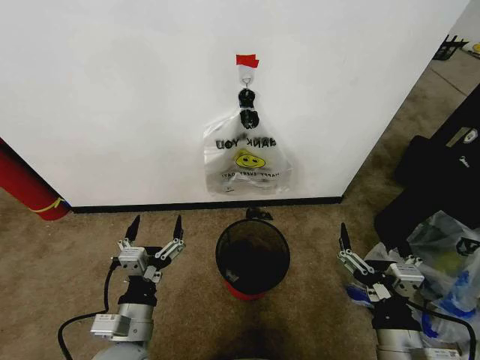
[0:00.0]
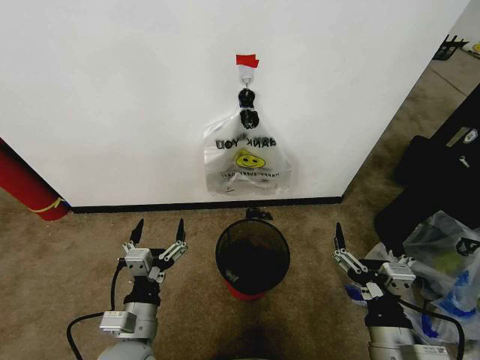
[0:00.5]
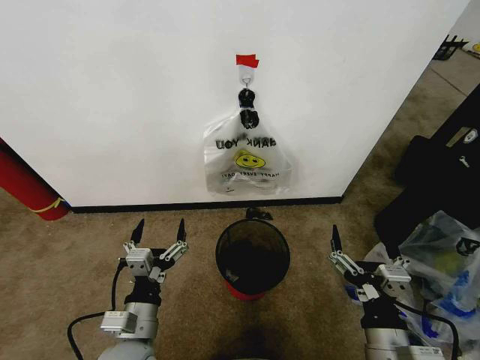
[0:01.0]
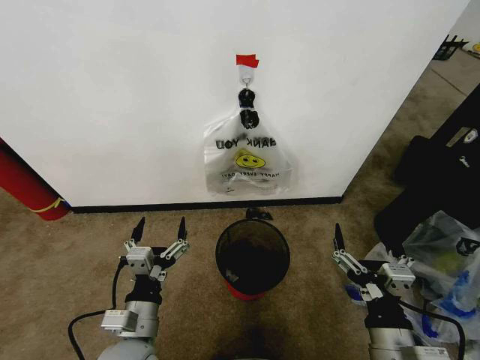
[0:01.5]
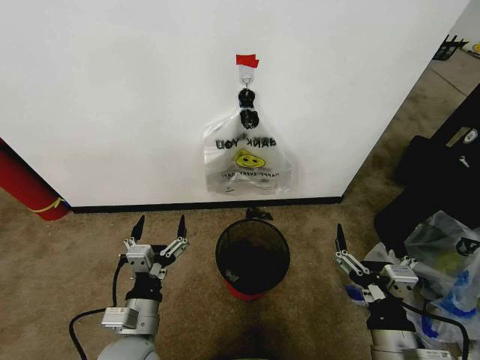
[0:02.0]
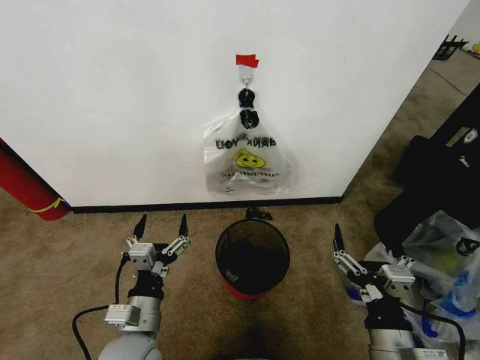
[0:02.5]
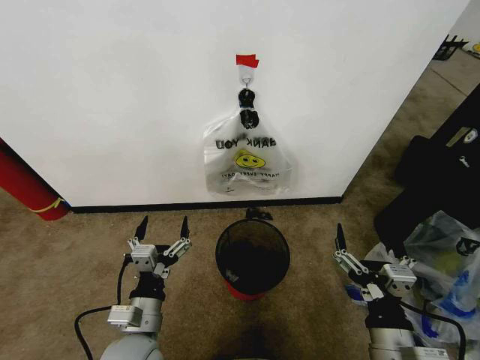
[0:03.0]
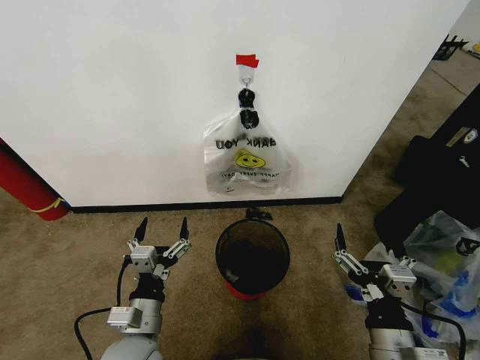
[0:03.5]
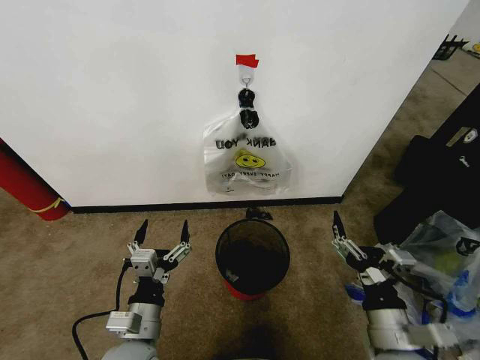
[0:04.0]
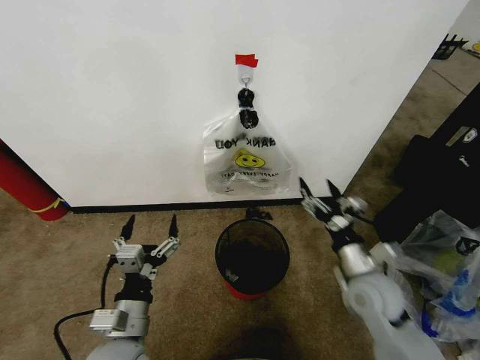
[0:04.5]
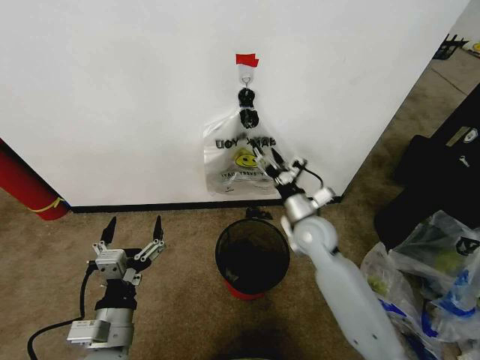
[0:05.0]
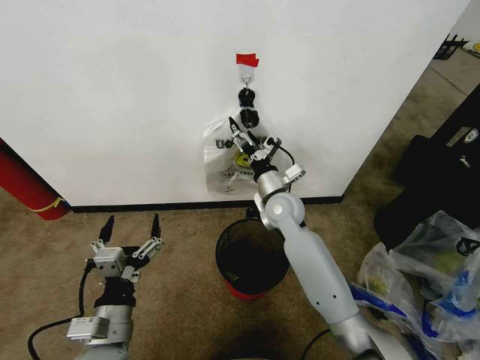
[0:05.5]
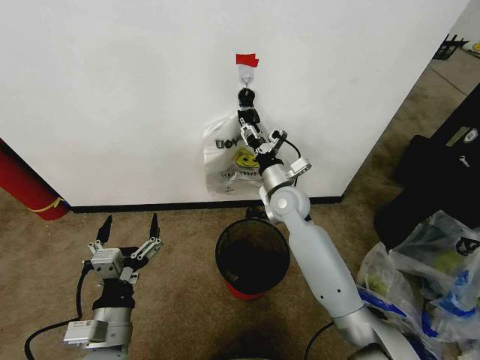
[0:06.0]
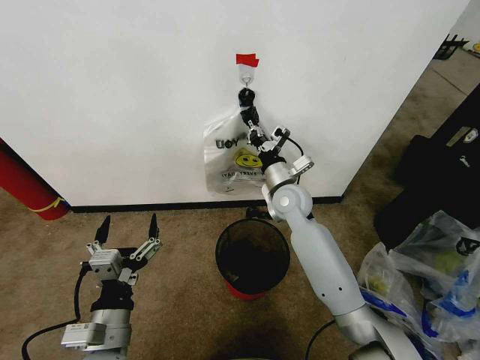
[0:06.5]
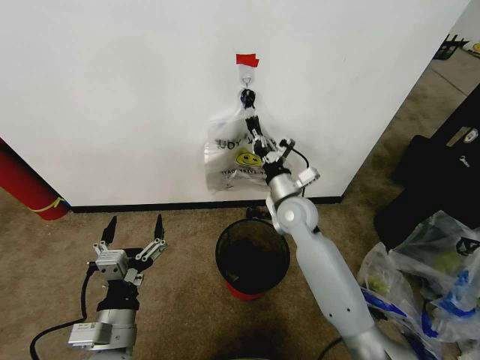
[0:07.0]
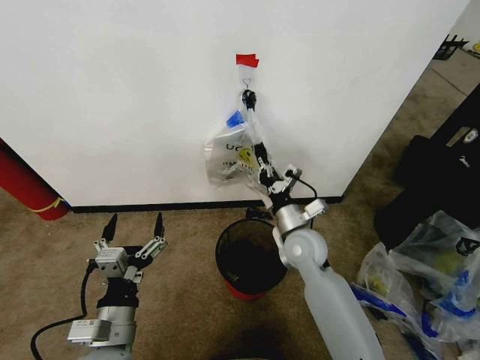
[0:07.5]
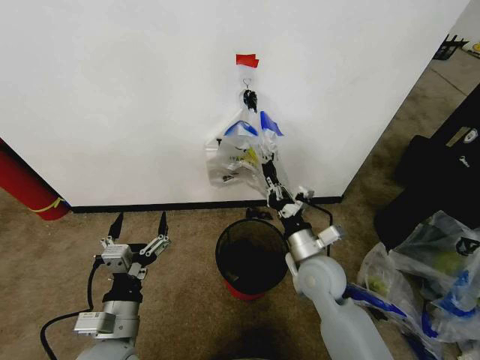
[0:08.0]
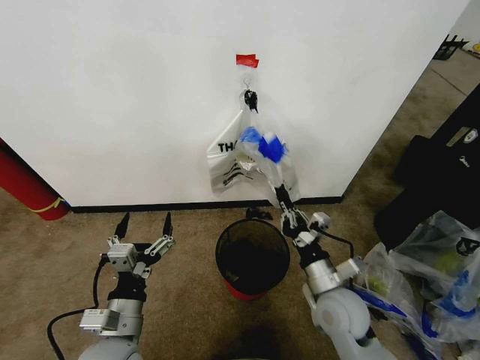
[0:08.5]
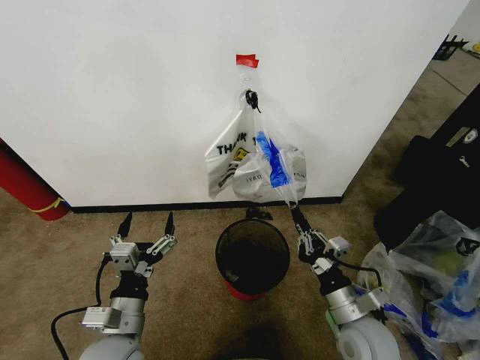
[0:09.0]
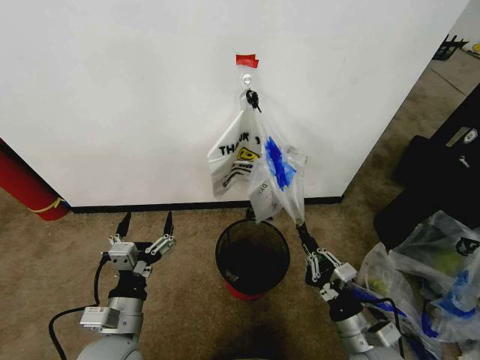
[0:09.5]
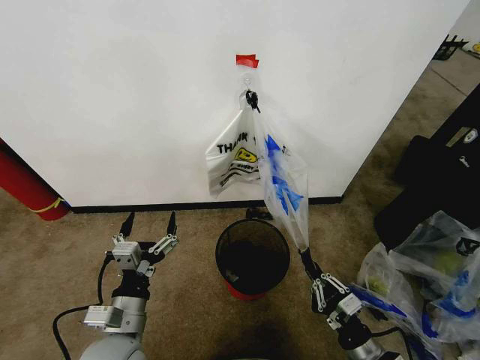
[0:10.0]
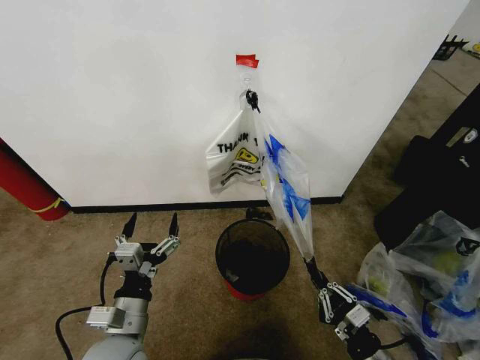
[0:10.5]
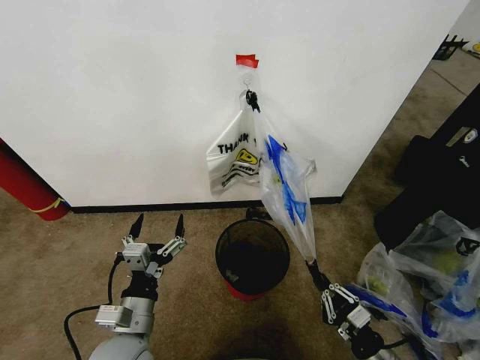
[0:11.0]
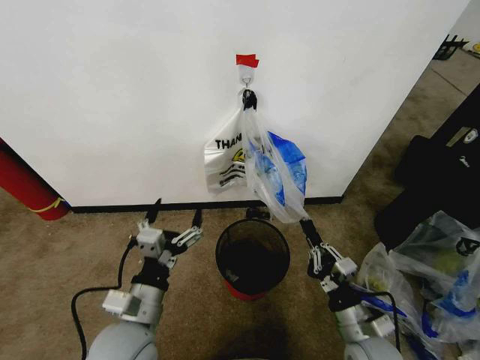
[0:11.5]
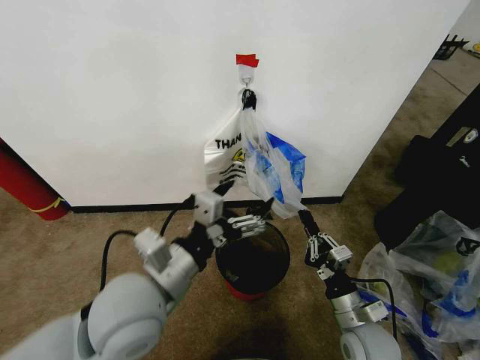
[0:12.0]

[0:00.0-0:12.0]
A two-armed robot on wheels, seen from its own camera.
Task of the whole recording: Pick up the garbage bag from the wall and place it over the trash bin.
0:02.0 to 0:04.0: There are only small adjustments of the grippers.
0:04.0 to 0:06.0: The right gripper goes approximately 35 cm forward, and closes its fingers.
0:06.0 to 0:08.0: The right gripper travels backward and downward by about 15 cm, and closes.
0:08.0 to 0:10.0: The right gripper heads backward, to the right and downward, covering about 25 cm.
0:10.0 to 0:12.0: The left gripper travels upward and to the right by some 15 cm. The right gripper travels forward by some 5 cm.

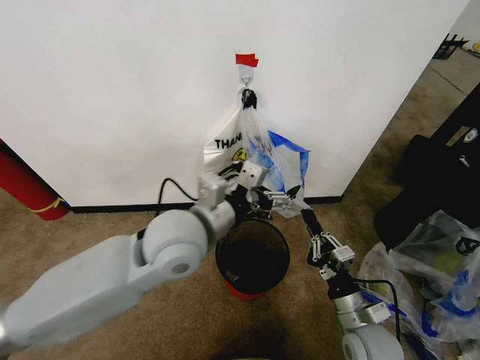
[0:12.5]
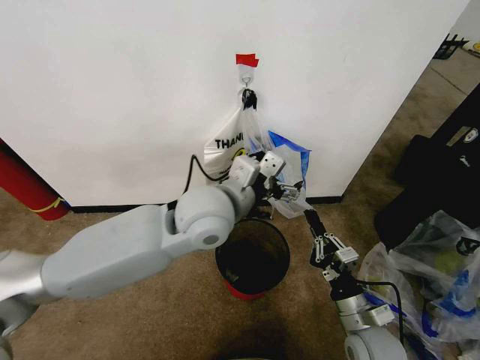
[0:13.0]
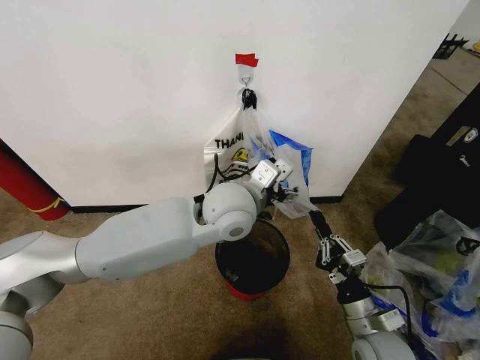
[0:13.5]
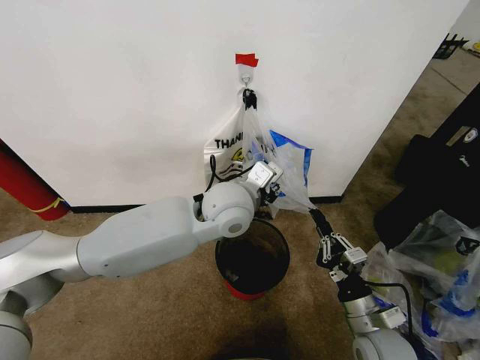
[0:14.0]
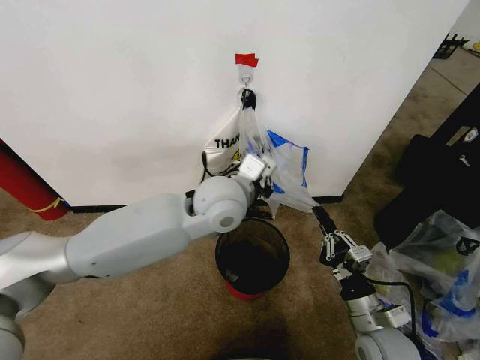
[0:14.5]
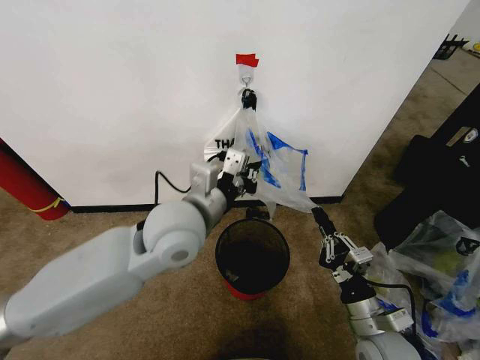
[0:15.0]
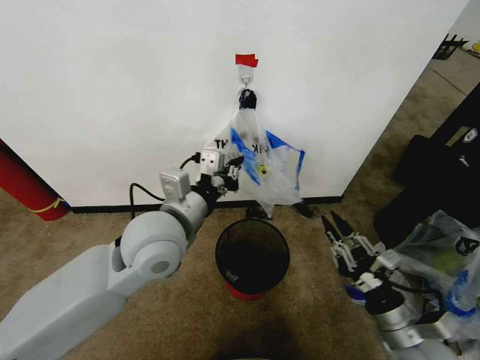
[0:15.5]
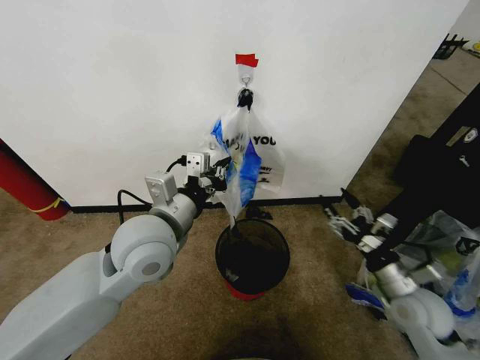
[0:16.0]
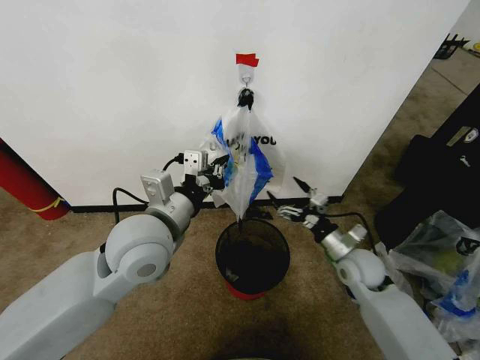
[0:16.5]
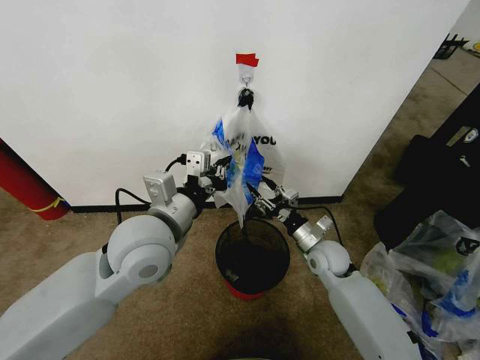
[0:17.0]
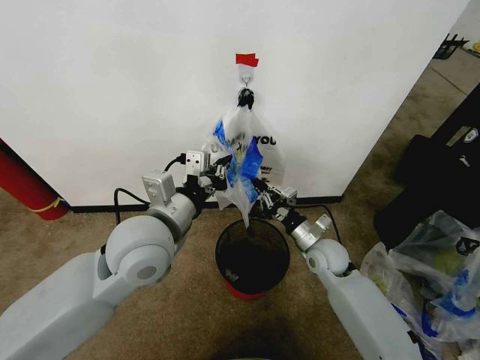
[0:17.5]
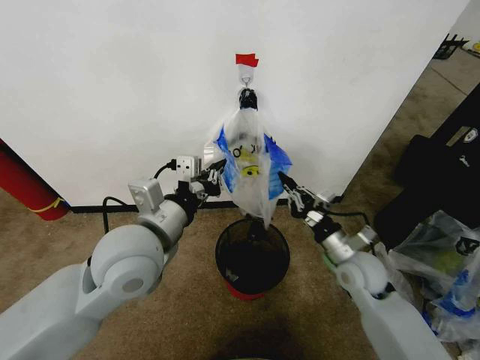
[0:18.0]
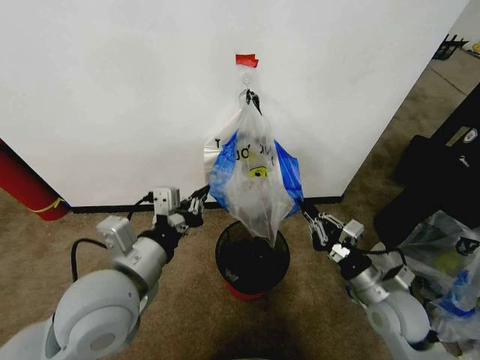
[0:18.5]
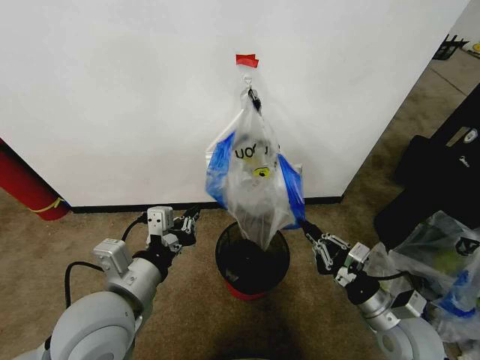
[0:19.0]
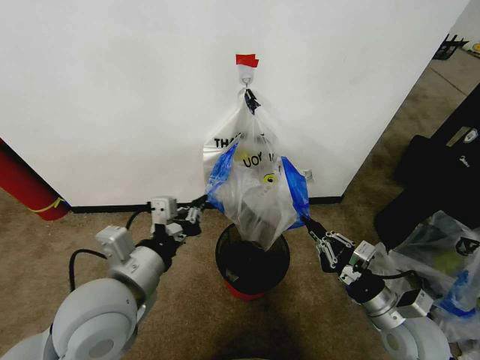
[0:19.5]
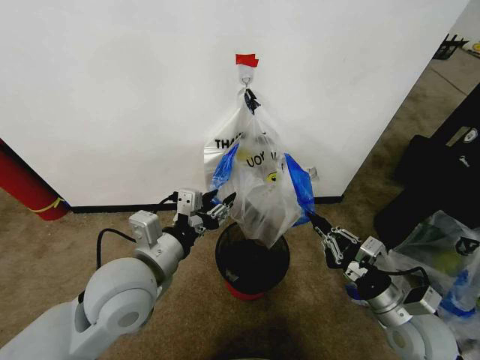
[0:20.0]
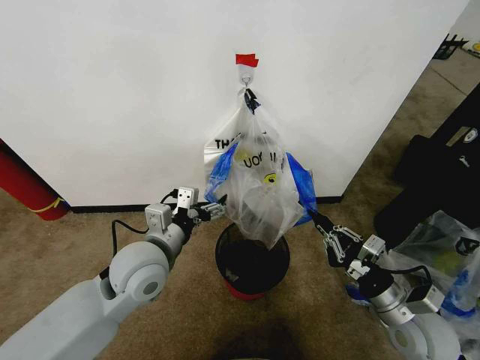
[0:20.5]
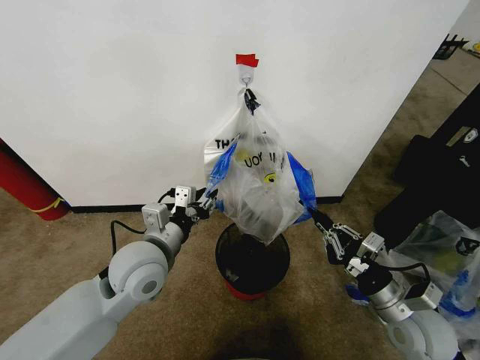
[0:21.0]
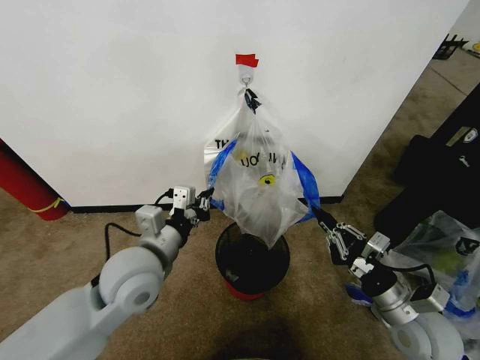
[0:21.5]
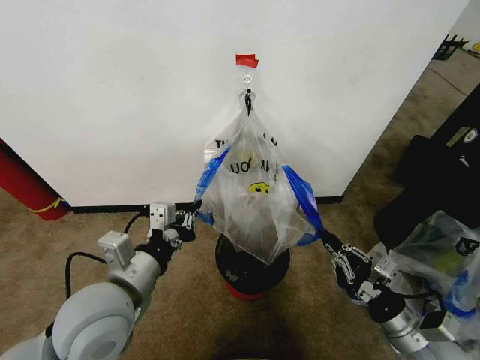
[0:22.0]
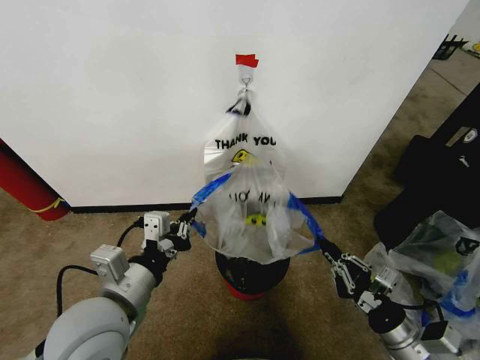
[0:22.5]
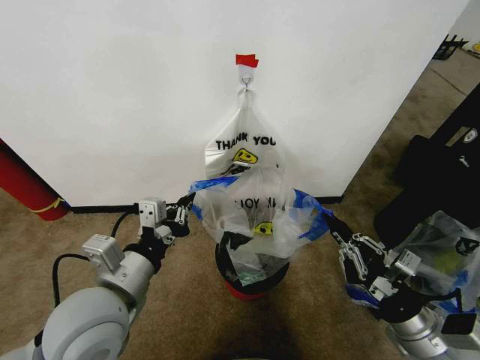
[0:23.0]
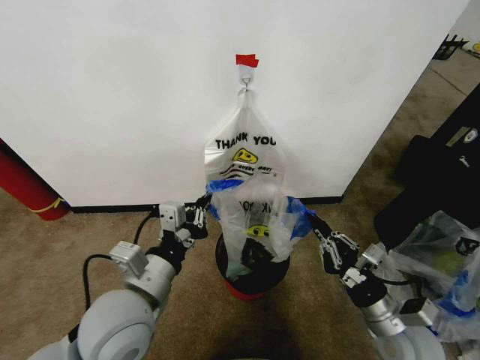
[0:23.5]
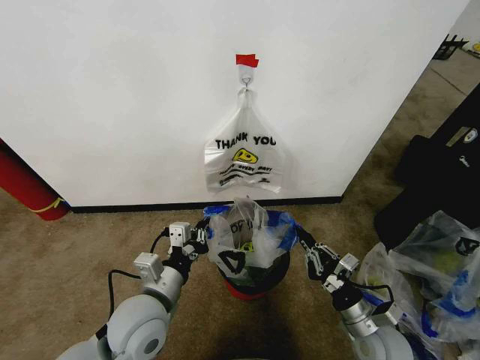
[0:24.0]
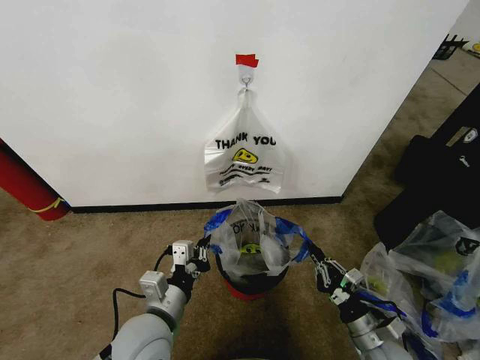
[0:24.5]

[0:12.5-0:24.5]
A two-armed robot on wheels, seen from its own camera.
Task of the whole recording: Pick up the garbage bag from the wall and place it over the trash bin.
0:12.5 to 0:14.5: The left gripper goes about 10 cm forward and to the right, and closes its fingers.
0:14.5 to 0:16.5: The right gripper moves forward, approximately 15 cm, and opens up, while the left gripper heads to the left and backward, covering roughly 15 cm.
0:16.5 to 0:18.5: Both grippers move backward, about 10 cm. The right gripper closes its fingers.
0:18.5 to 0:20.5: The left gripper heads forward and downward, covering about 10 cm, and opens its fingers.
0:20.5 to 0:22.5: The right gripper travels backward by approximately 5 cm, while the left gripper travels backward by about 10 cm, and closes its fingers.
0:22.5 to 0:24.5: The two grippers go about 10 cm downward.

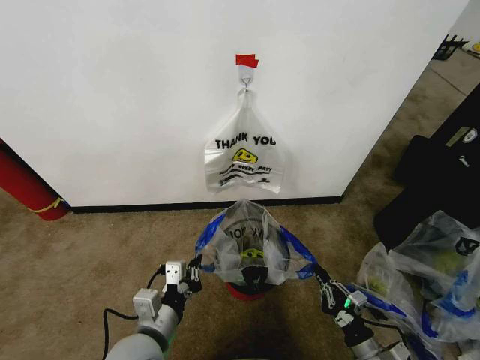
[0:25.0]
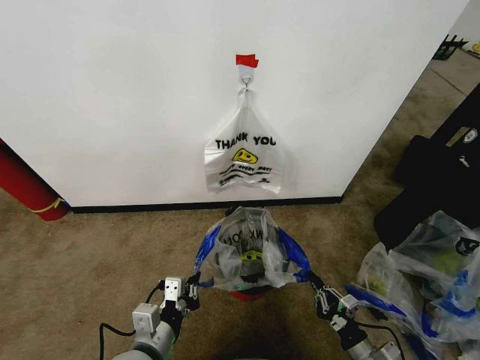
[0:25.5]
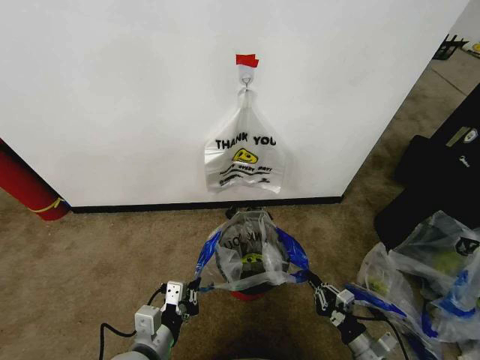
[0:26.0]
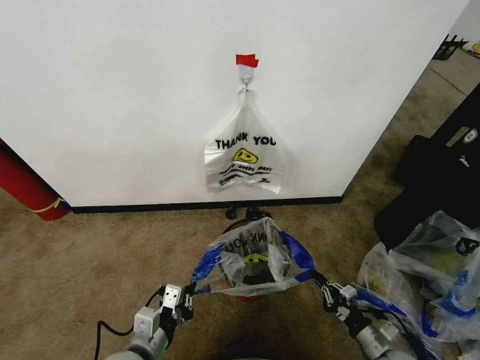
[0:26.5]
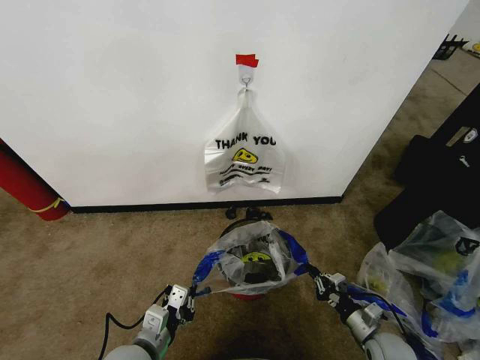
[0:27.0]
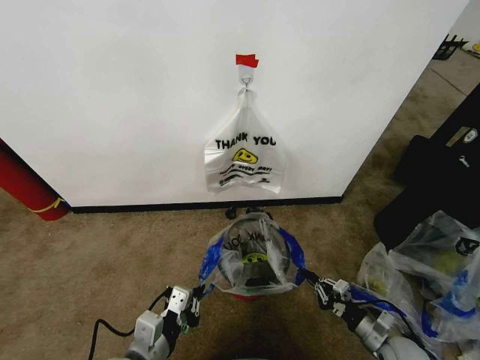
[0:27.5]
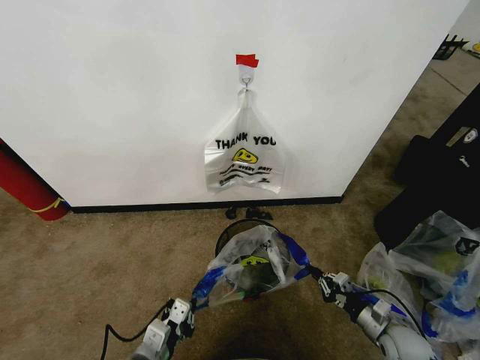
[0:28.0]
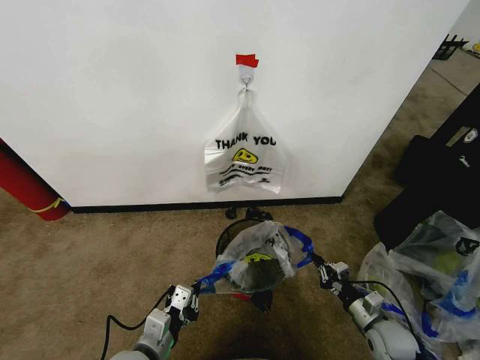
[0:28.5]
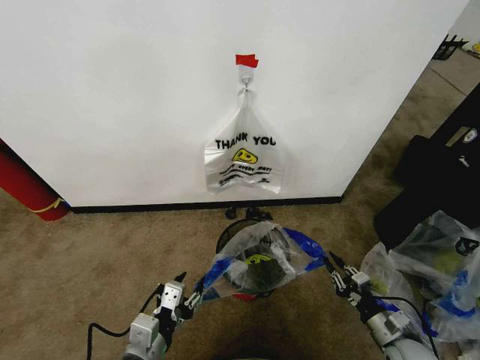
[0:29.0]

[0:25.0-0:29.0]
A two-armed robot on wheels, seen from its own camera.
Task of the whole recording: Pick up the garbage bag from the wall and place it over the trash bin.
0:25.0 to 0:27.0: The right gripper goes roughly 5 cm forward; the left gripper is displaced downward by about 5 cm.
0:27.0 to 0:29.0: The left gripper goes up and down, about 5 cm each way, reversing 2 times, and opens.
